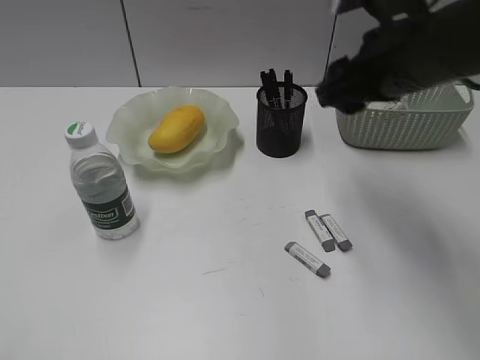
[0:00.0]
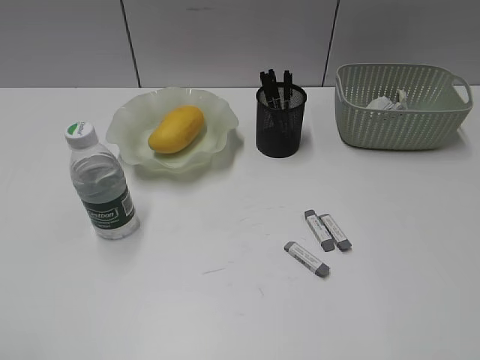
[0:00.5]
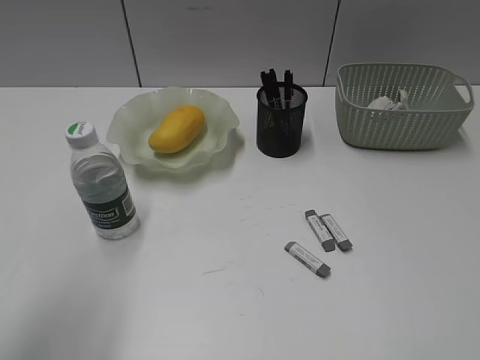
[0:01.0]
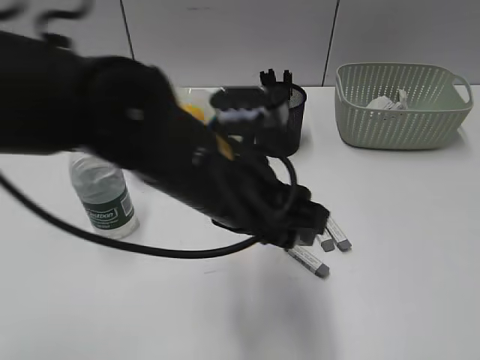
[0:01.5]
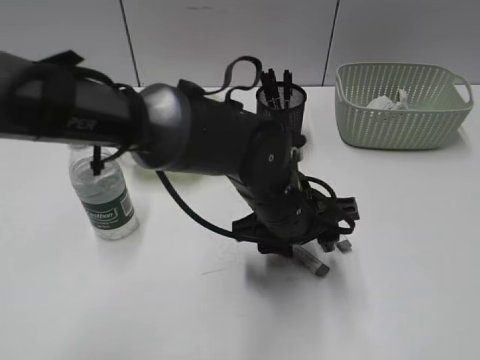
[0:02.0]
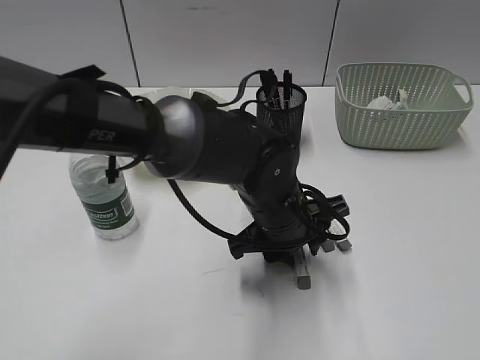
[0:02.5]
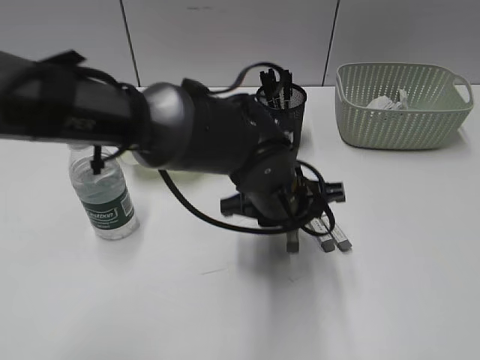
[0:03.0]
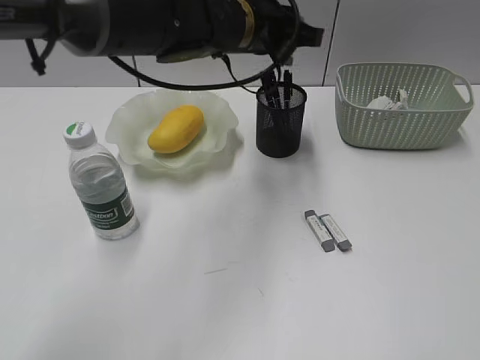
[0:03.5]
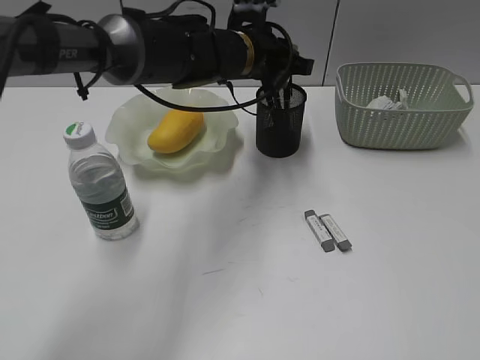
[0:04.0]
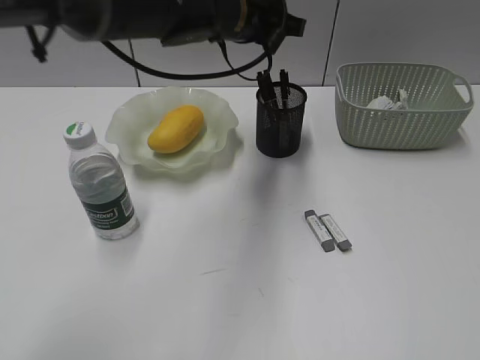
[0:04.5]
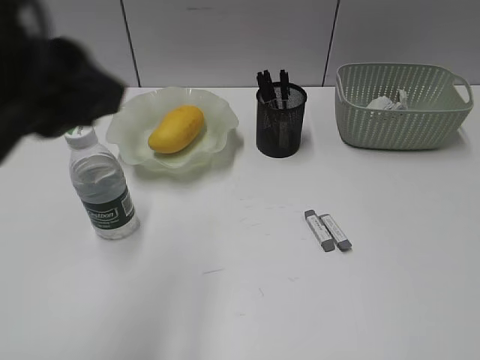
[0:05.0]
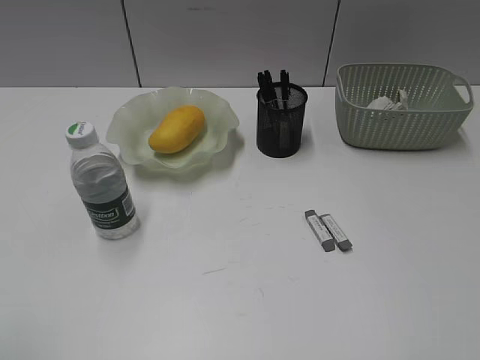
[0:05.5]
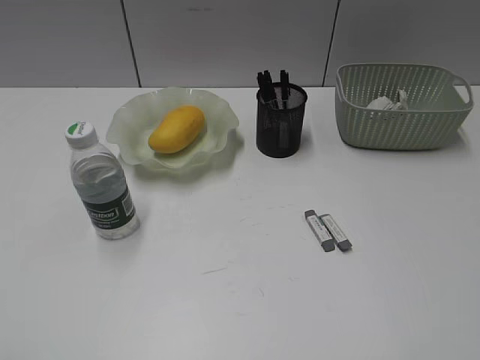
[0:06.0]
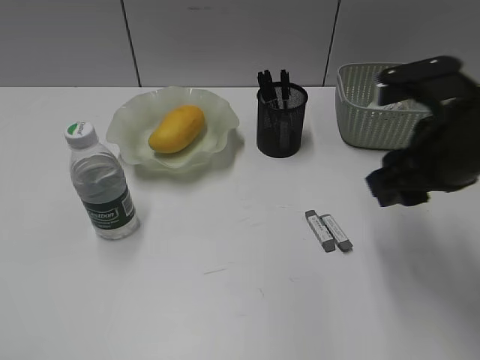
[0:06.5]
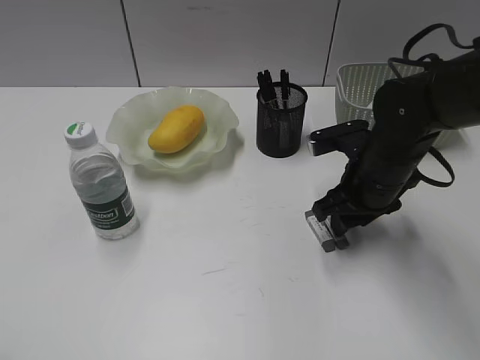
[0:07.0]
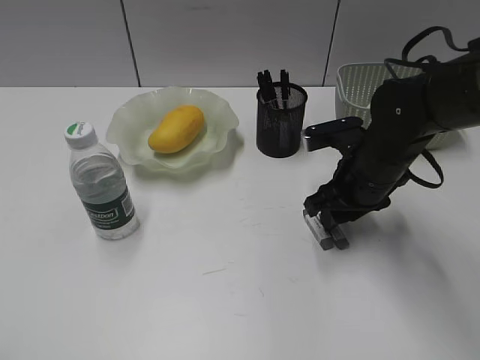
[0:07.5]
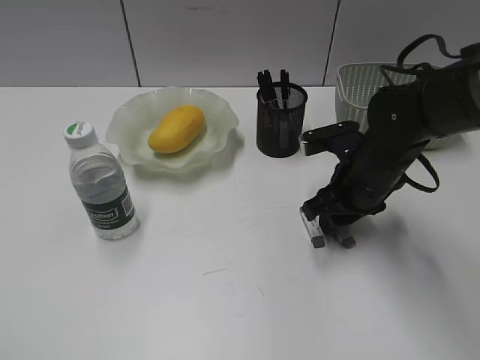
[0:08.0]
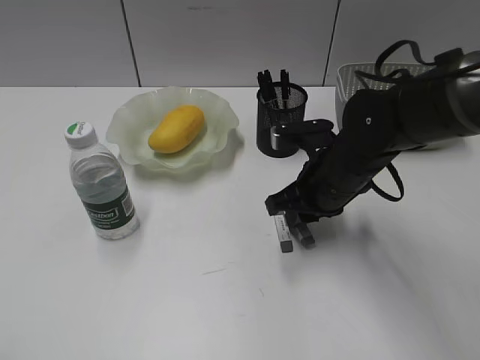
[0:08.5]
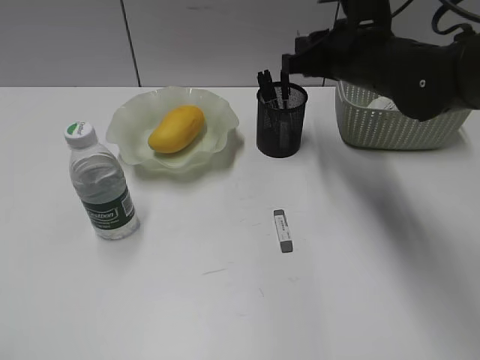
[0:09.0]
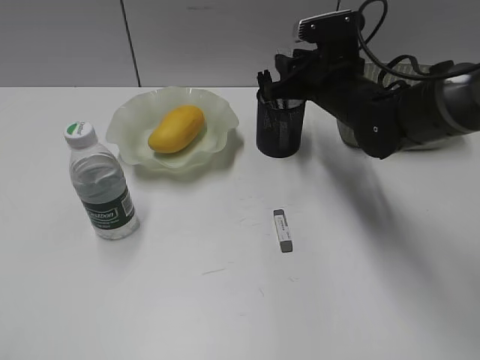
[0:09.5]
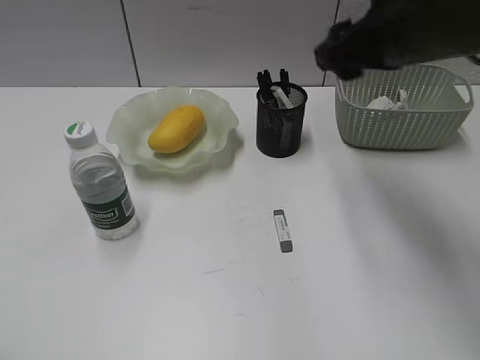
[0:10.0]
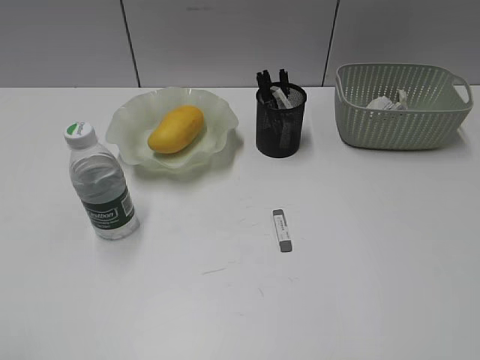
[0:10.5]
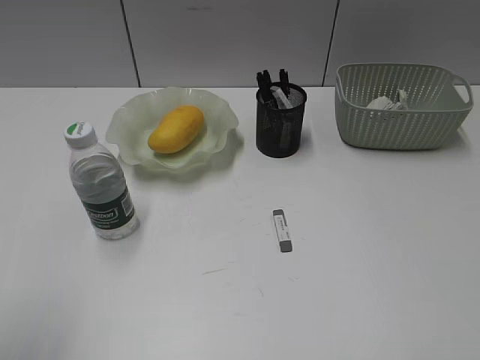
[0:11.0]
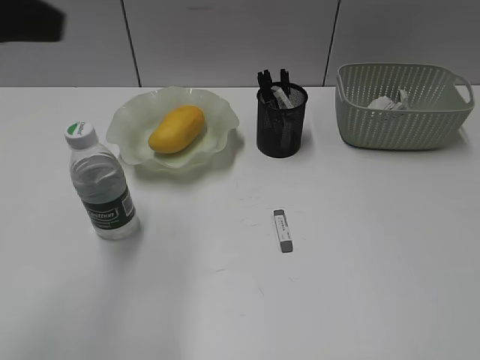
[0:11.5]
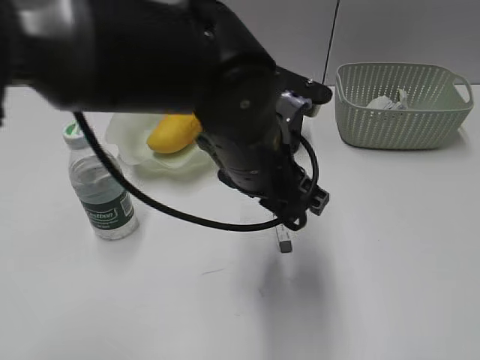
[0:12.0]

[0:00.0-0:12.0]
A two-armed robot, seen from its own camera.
Step, 0:00.0 to 0:02.5: Grasp the eraser with left gripper.
Step, 0:03.0 to 0:04.0: Place the eraser in pen holder with left gripper.
Step, 0:04.5 to 0:08.0: Grasp the eraser with right gripper.
Step, 0:08.5 to 0:09.5: Place the eraser in pen holder with right gripper.
0:00.0 to 0:02.0: The right gripper goes about 35 cm backward and to the right. Meanwhile the left gripper travels to the right, forward and downward by approximately 50 cm.
0:02.0 to 0:04.0: The left gripper heads forward and upward, covering about 20 cm, and closes up.
0:04.0 to 0:06.0: The left gripper travels backward and to the left by roughly 50 cm, and opens up.
0:06.0 to 0:08.0: The right gripper goes approximately 40 cm forward, downward and to the left.
0:08.0 to 0:10.0: The right gripper goes up and down, about 15 cm each way, reversing 2 times, and closes and opens again.
0:10.0 to 0:12.0: The left gripper travels to the right and forward by approximately 40 cm. Meanwhile the right gripper shifts some 35 cm backward and to the right.

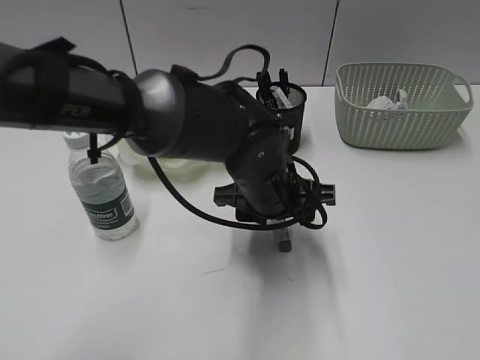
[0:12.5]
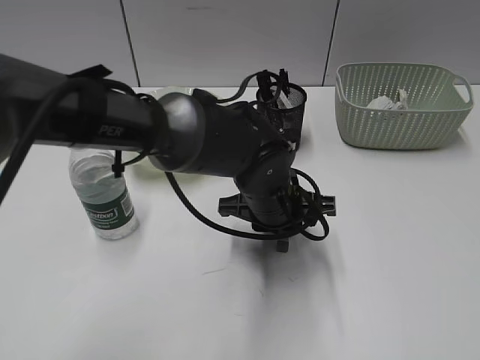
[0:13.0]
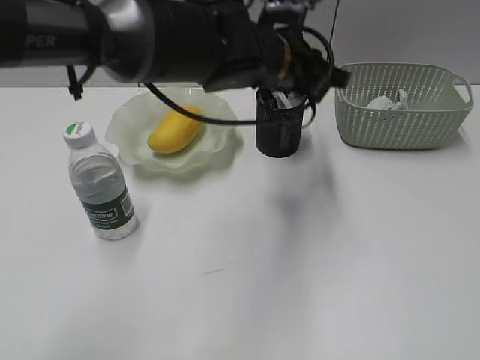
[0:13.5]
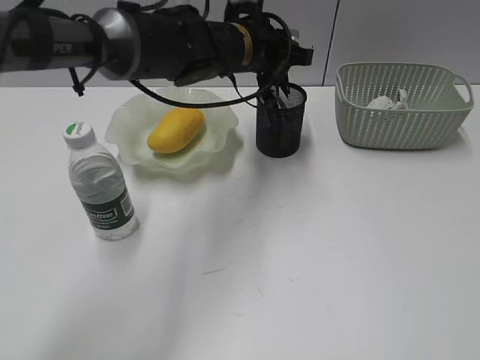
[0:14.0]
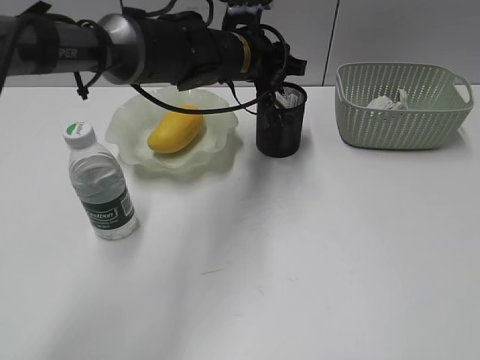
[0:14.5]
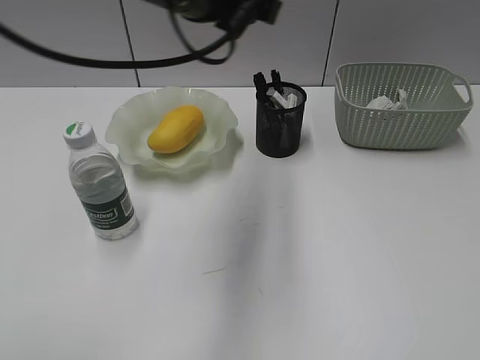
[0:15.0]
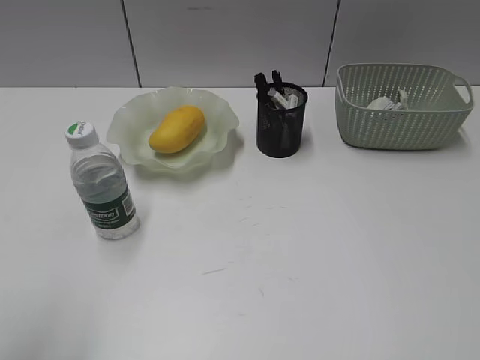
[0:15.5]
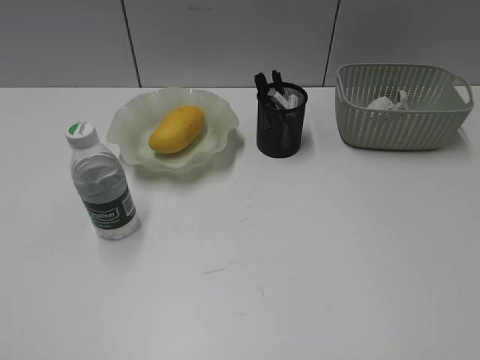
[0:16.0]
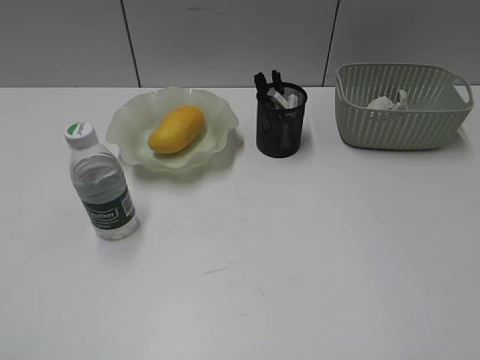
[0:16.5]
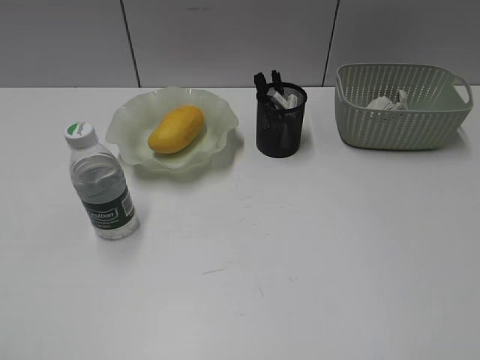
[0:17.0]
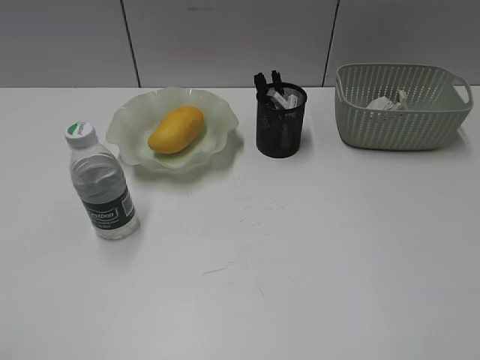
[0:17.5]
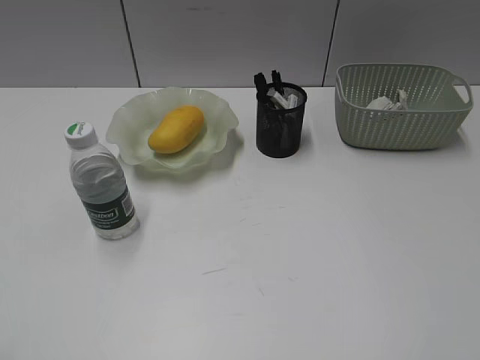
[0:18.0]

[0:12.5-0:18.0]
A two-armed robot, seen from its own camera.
Step, 0:13.5 to 0:14.5: Place the eraser in pen holder with left gripper.
0:12.5 to 0:14.5: The left gripper travels forward and upward by about 15 cm, and closes, then opens again.
0:14.5 to 0:16.0: The left gripper heads backward and to the left, covering approximately 60 cm.

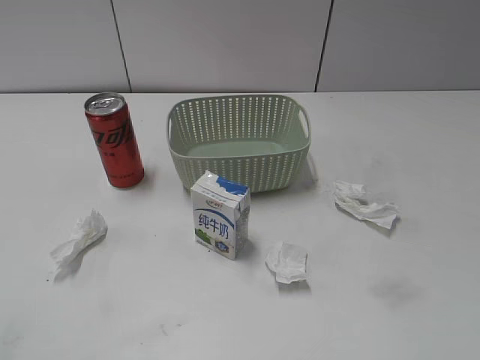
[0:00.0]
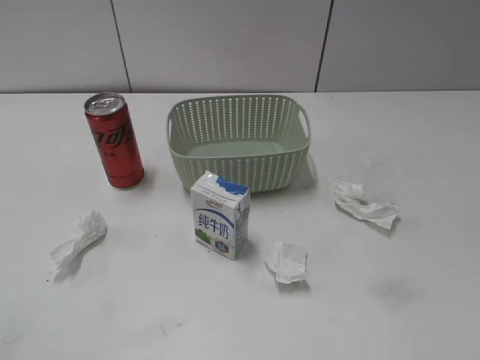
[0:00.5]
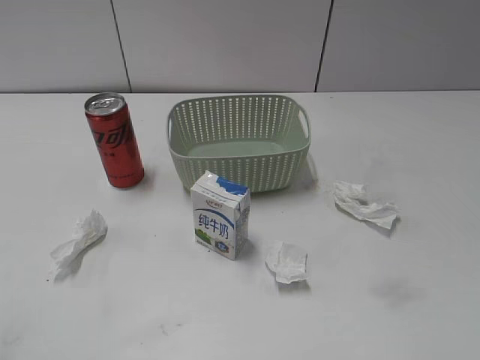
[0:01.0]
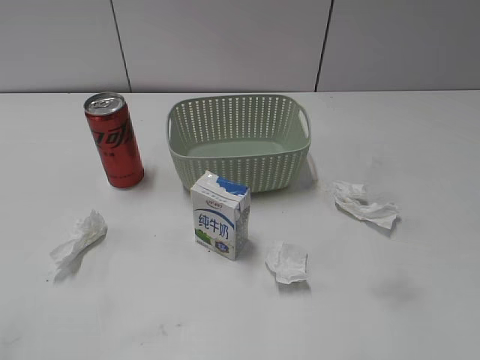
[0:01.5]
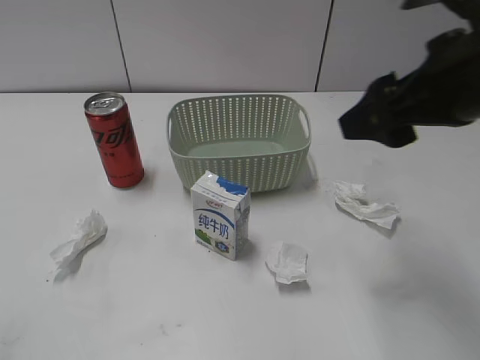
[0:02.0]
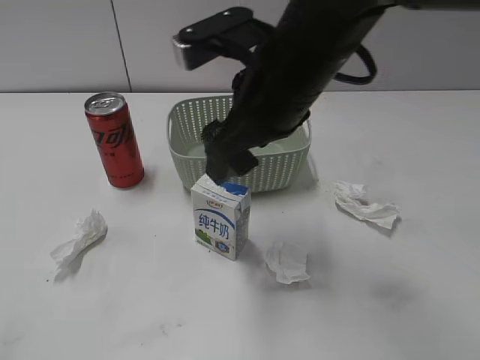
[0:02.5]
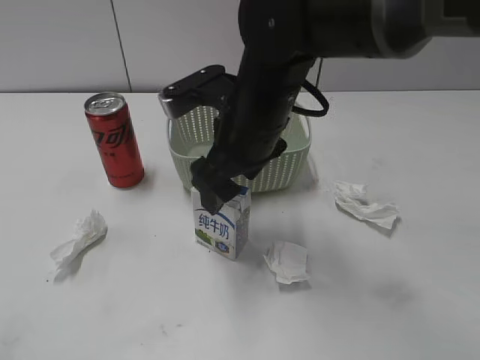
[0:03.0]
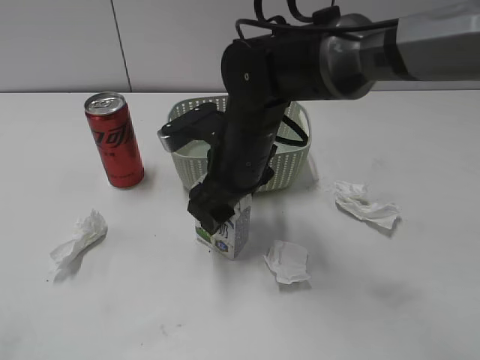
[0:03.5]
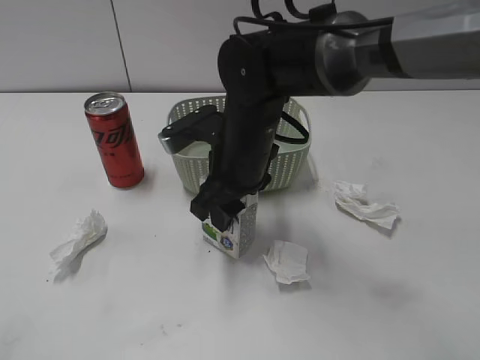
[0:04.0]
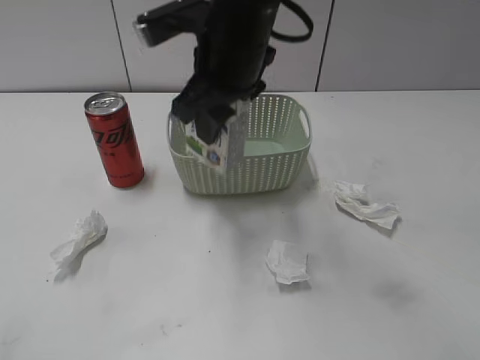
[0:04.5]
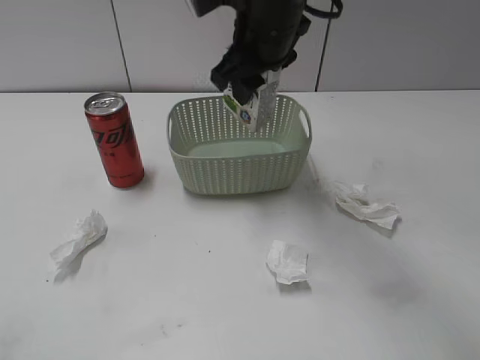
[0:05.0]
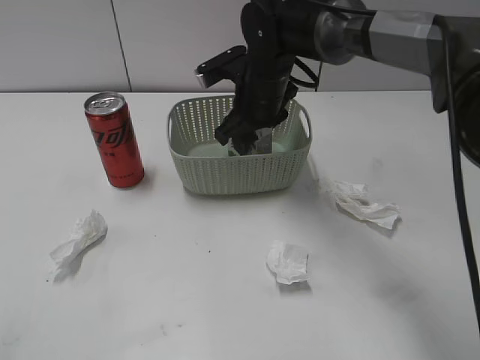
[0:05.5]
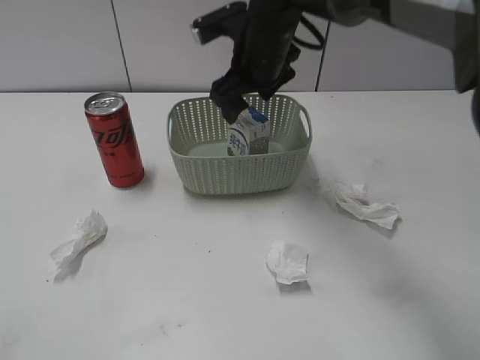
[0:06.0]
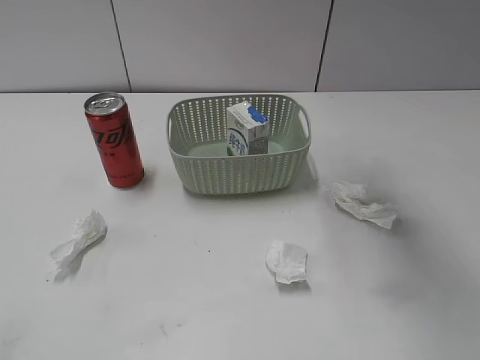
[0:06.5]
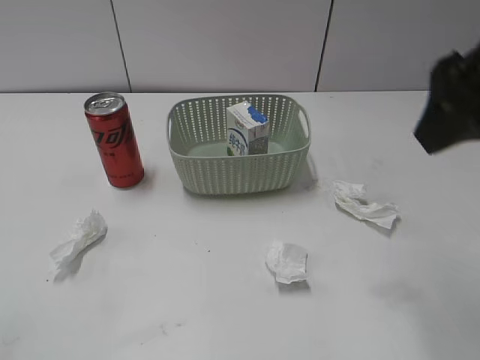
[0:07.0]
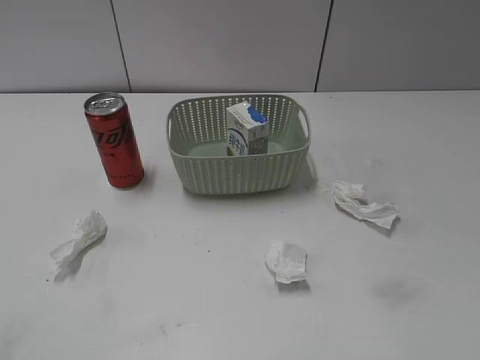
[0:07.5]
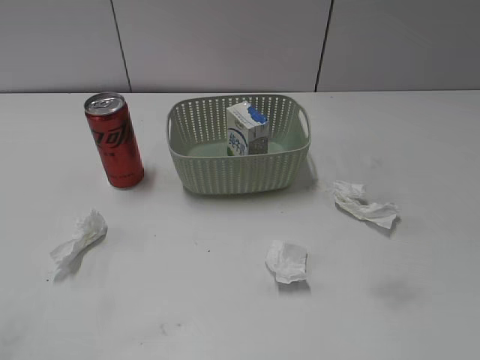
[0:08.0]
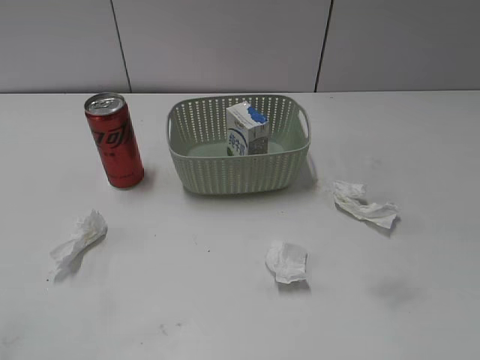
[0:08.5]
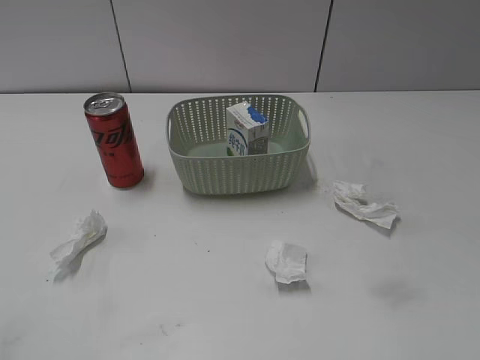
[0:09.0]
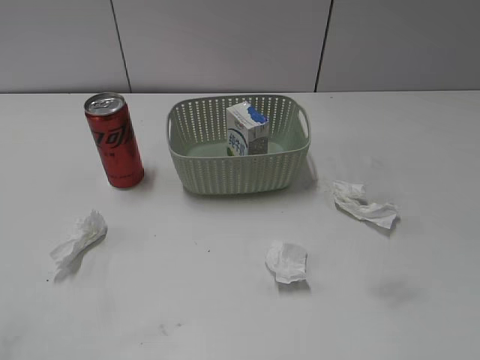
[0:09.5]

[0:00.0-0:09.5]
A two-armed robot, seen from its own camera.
Step, 0:02.0 to 0:03.5: Grasp the milk with right gripper.
Step, 0:04.0 to 0:06.0: Place the milk in the basket with right gripper.
0:02.0 to 0:04.0: The right gripper shifts roughly 25 cm to the left, downward and forward, and closes up.
0:04.0 to 0:05.5: The right gripper moves forward, approximately 10 cm, and reaches some 10 cm upward, then returns.
0:05.5 to 0:07.5: The right gripper shifts about 40 cm backward and to the right, and opens.
